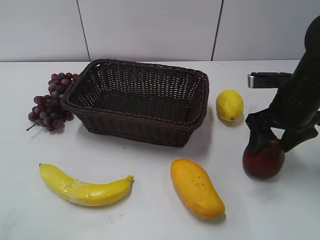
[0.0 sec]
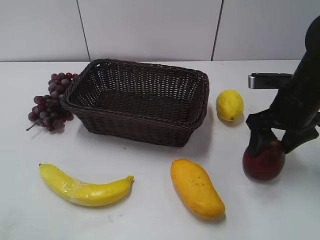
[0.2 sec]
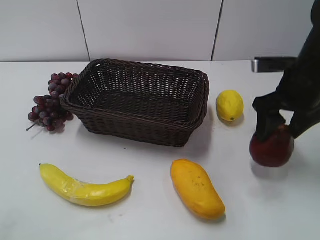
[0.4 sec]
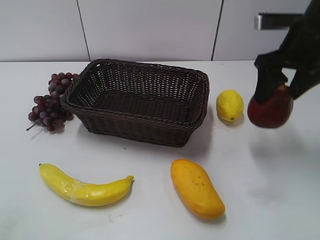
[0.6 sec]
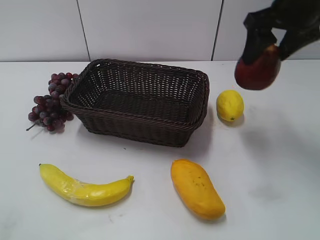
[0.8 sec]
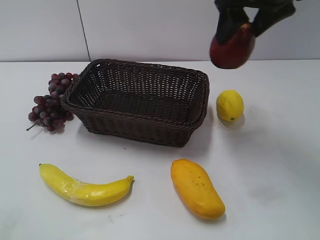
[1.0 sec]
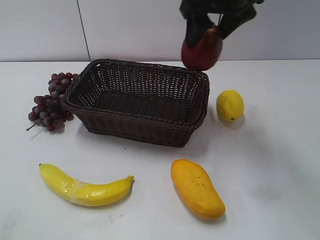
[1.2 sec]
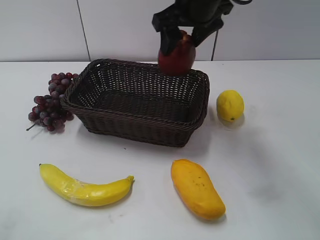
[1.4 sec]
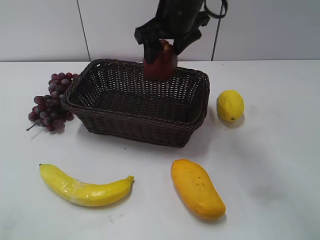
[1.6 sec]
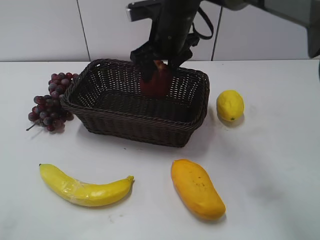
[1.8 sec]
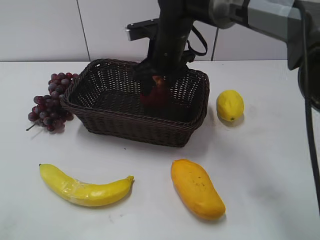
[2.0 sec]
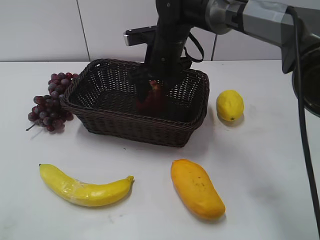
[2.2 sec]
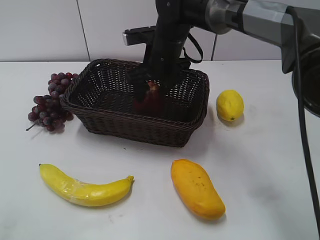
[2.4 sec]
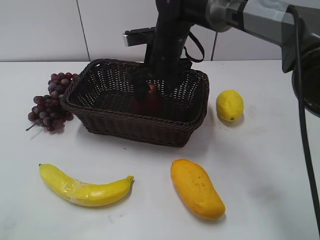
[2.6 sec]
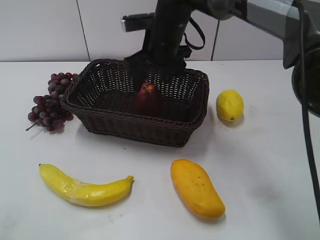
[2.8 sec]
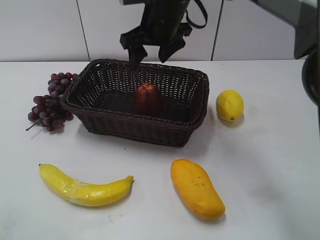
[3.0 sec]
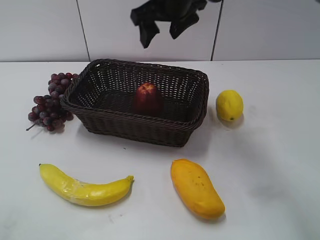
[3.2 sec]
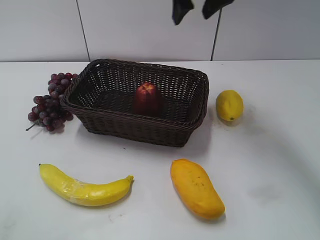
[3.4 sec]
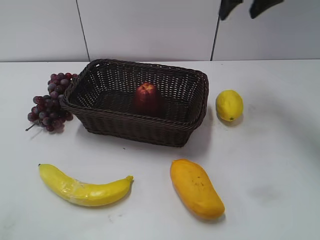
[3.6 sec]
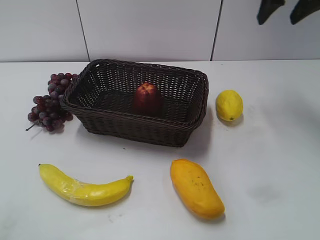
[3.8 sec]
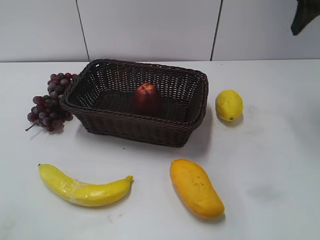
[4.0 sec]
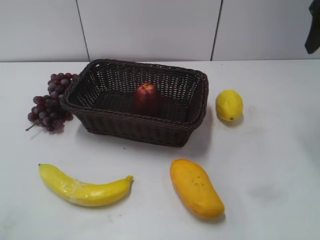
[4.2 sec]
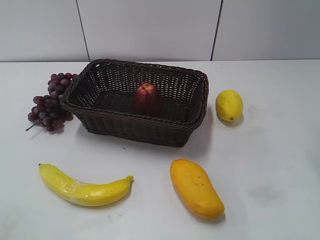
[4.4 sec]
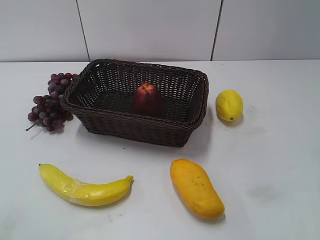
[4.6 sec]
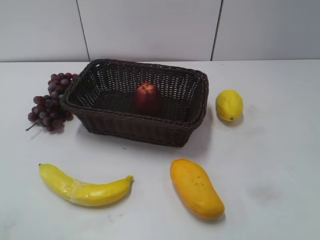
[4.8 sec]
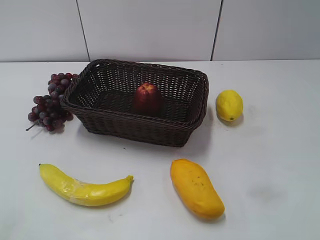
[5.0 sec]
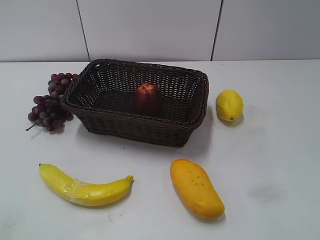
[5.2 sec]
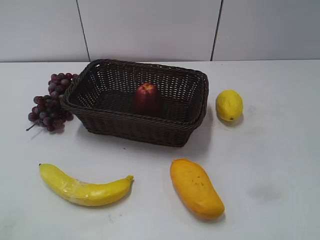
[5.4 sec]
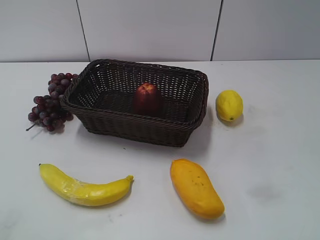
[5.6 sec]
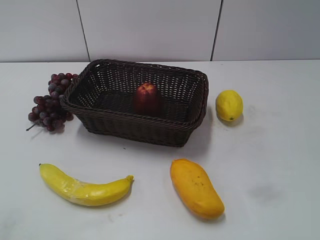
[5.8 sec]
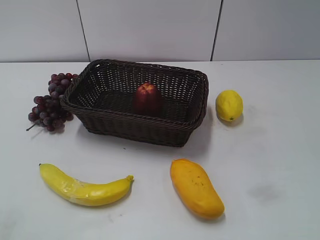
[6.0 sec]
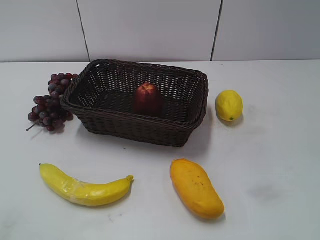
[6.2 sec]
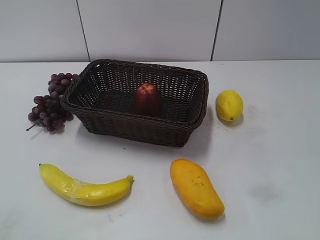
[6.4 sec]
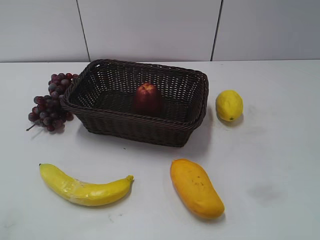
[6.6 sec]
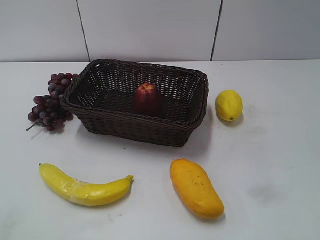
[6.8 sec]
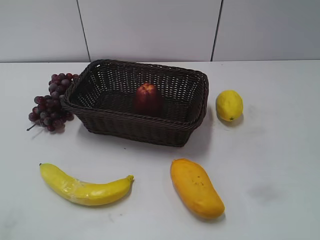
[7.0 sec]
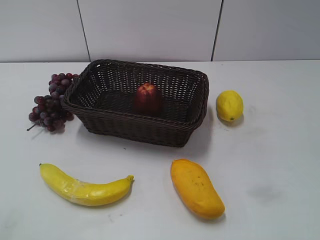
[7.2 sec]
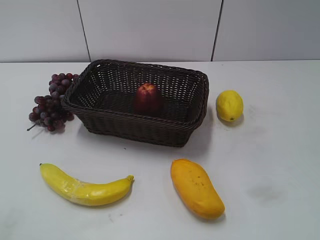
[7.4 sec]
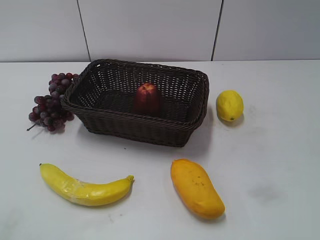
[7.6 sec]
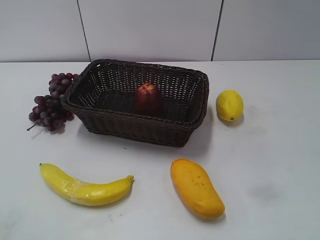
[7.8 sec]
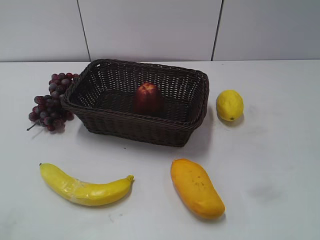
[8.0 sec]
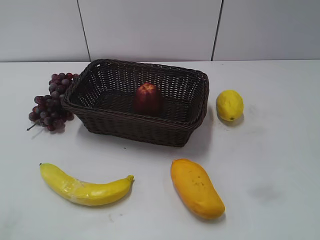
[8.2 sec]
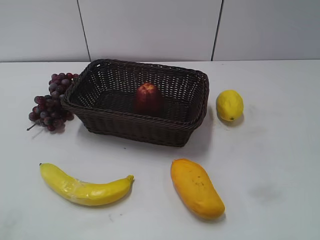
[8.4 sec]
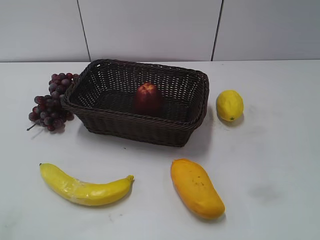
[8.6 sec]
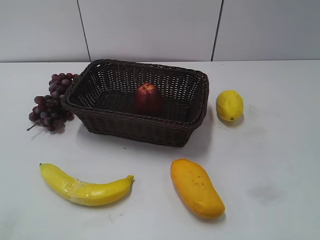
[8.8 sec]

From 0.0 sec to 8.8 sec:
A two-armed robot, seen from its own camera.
Step, from 0.0 sec to 2.4 sec: Place the apple in the basket with right gripper.
From 0.0 sec to 1.4 sec: The right gripper heads to the left, upward and forward, covering about 25 cm.
From 3.0 sec to 4.4 sec: The right gripper heads to the right and backward, covering roughly 30 cm.
From 7.4 sec to 8.8 sec: The two grippers keep their place.

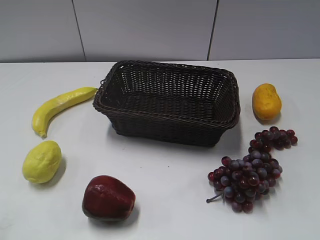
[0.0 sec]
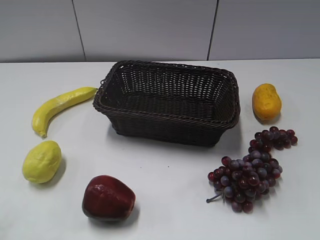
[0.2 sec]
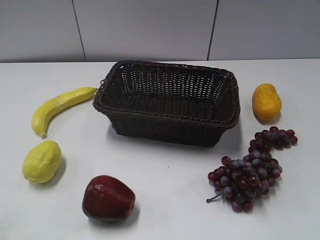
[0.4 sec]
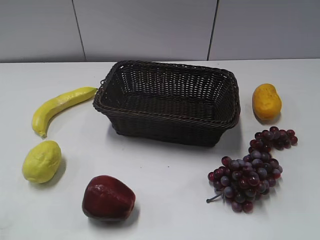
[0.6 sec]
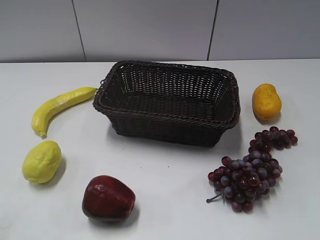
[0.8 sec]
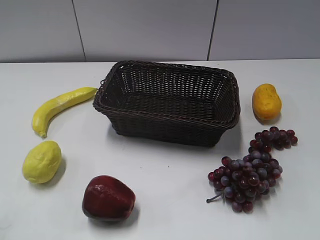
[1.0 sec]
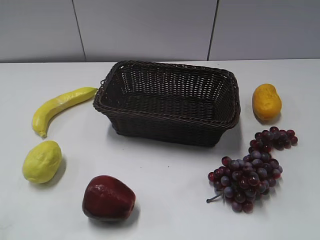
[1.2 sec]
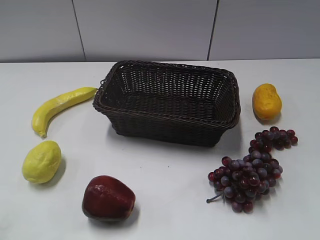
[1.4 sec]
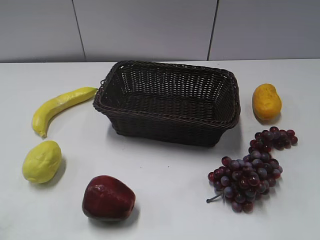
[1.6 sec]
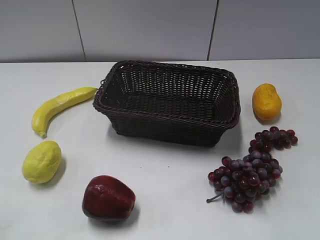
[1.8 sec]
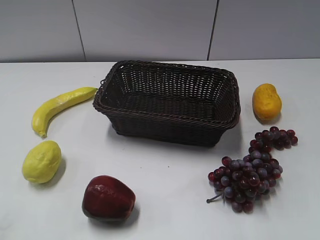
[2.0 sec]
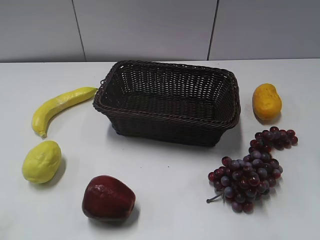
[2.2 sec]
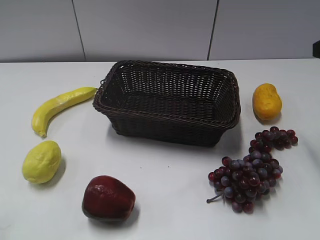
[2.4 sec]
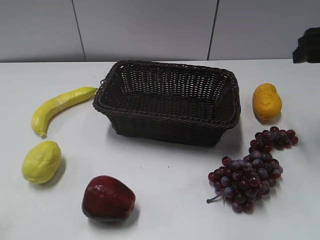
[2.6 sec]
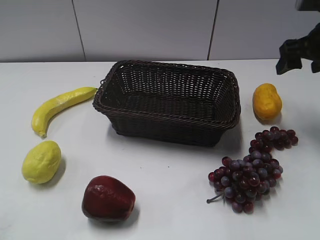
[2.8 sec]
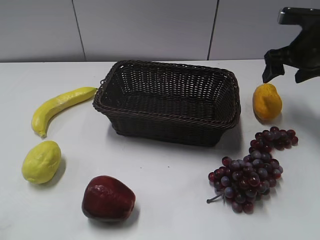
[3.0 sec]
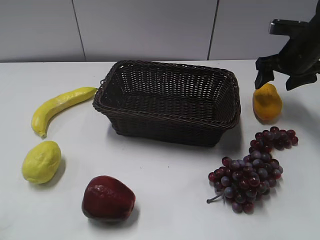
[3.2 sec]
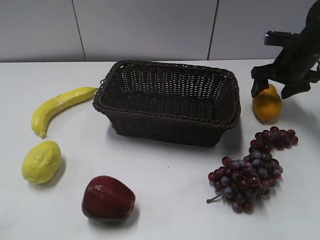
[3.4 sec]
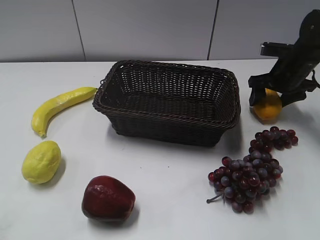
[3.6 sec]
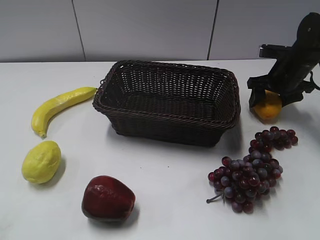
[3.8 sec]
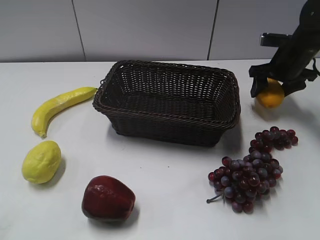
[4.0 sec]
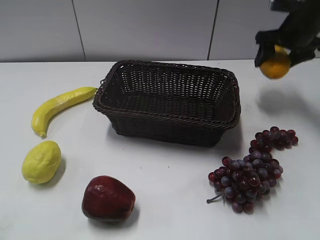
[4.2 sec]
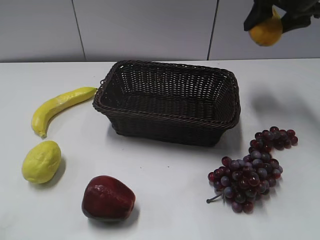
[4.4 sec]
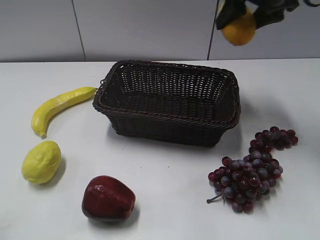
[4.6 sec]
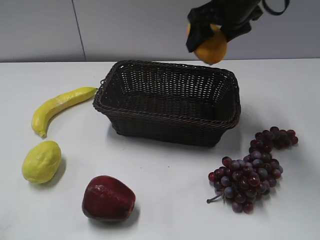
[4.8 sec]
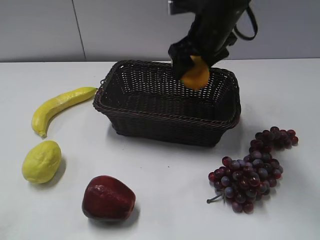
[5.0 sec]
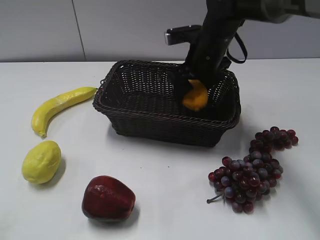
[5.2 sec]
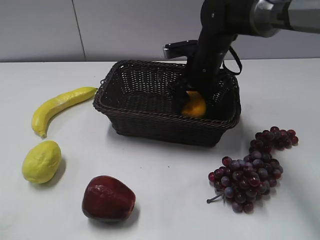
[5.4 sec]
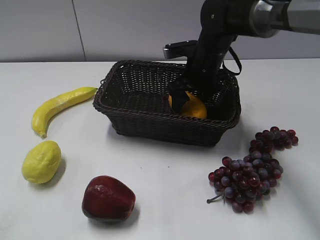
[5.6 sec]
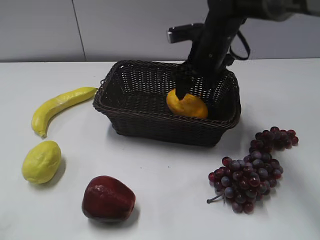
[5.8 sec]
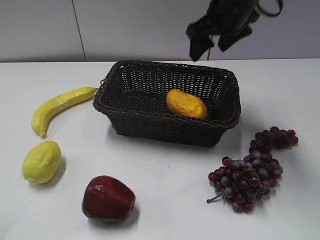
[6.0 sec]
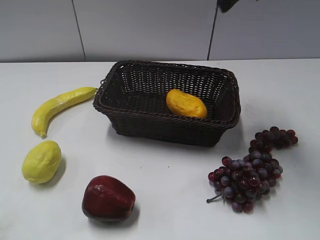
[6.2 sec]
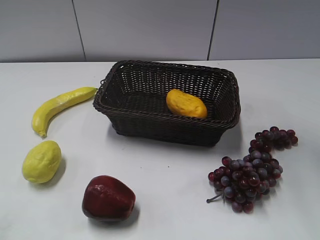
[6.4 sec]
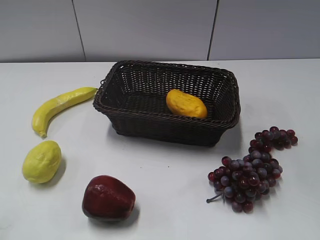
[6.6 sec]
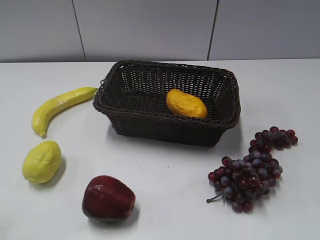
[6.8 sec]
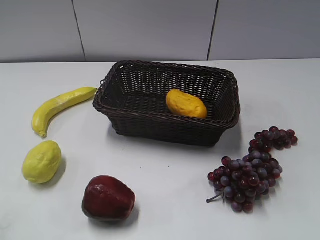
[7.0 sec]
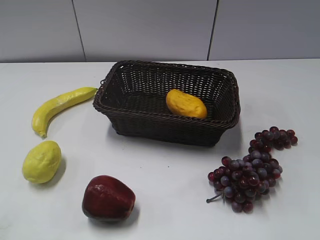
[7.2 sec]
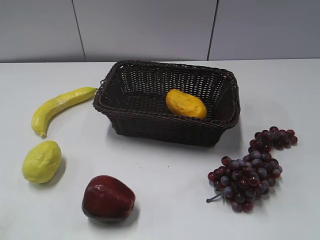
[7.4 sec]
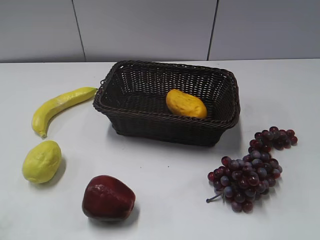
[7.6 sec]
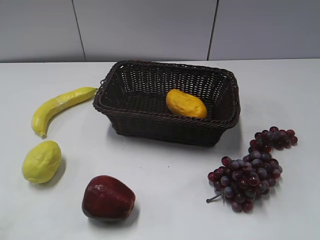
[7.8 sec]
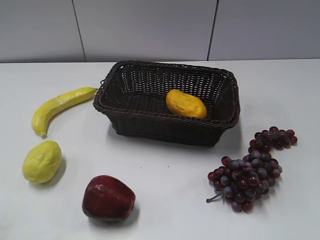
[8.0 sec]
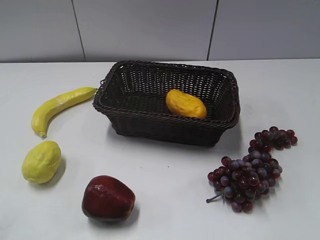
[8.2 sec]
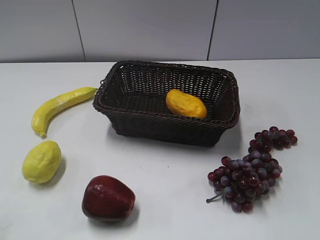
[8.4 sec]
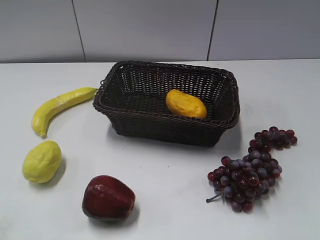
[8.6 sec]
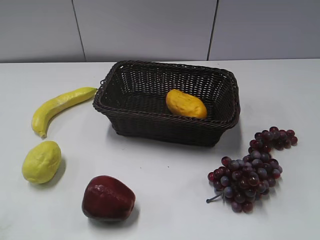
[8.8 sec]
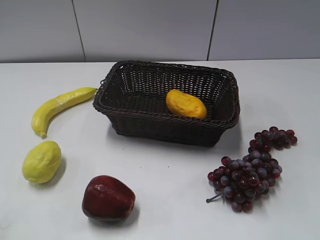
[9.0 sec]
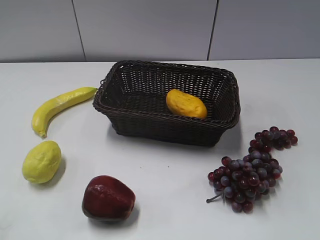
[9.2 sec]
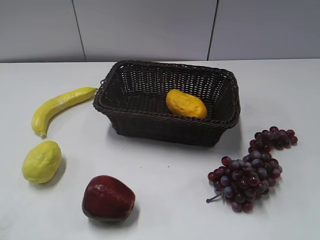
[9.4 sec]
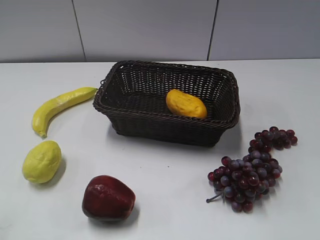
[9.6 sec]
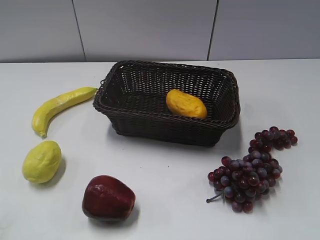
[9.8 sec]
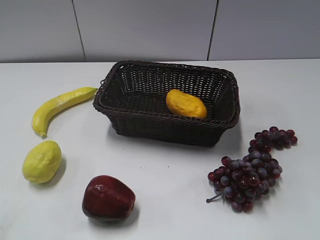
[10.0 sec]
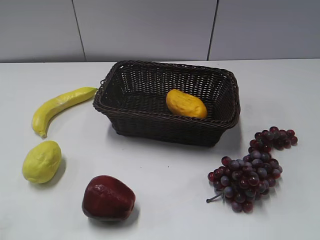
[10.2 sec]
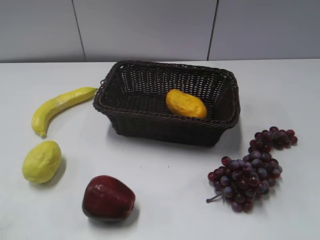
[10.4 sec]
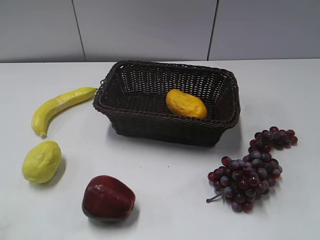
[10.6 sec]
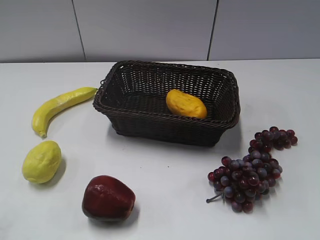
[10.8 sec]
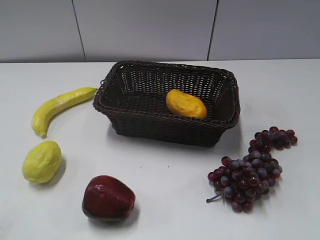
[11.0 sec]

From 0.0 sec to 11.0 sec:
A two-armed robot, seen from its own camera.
Step, from 2.4 sec to 3.6 sec: Grasp the mango with right gripper.
Step, from 4.0 sec to 5.6 sec: Place the mango in the basket with right gripper.
From 1.6 sec to 3.2 sec: The right gripper is displaced forward by approximately 40 cm.
From 3.2 sec to 4.8 sec: The right gripper shifts roughly 20 cm to the left and upward.
From 4.8 sec to 6.2 sec: The right gripper moves upward and backward, about 10 cm.
From 6.2 sec to 7.8 sec: The right gripper travels backward and to the right by roughly 35 cm.
